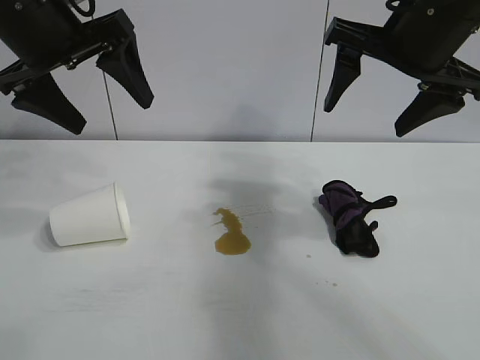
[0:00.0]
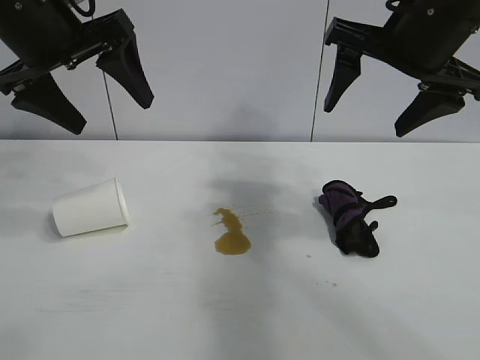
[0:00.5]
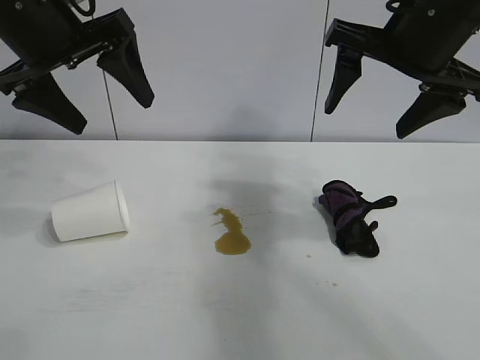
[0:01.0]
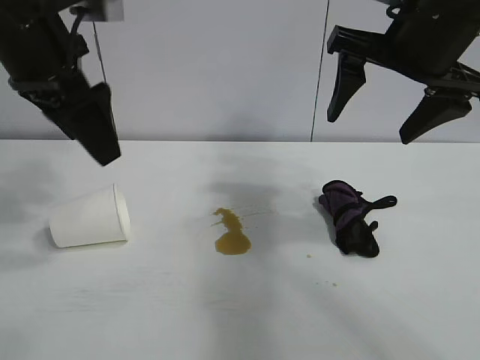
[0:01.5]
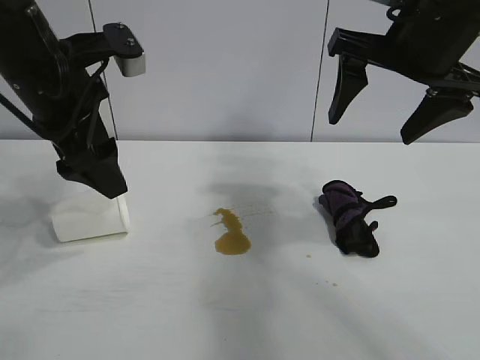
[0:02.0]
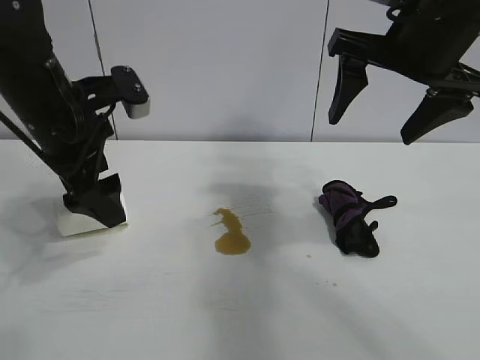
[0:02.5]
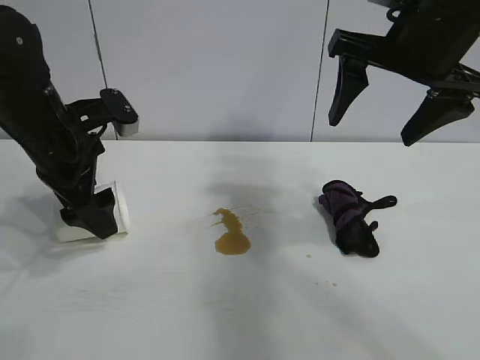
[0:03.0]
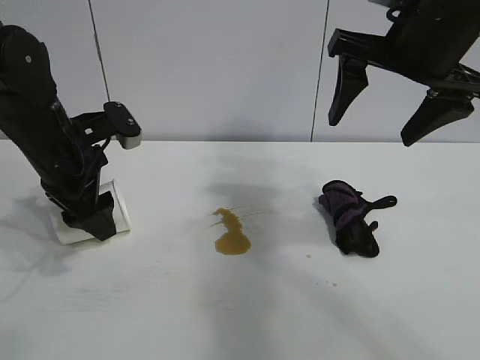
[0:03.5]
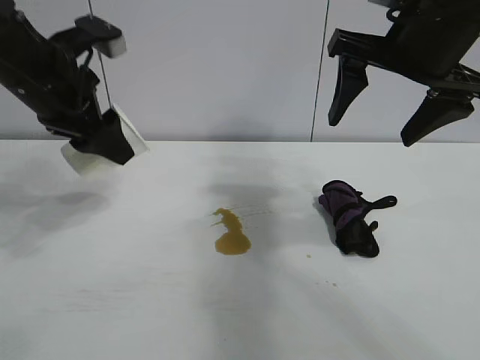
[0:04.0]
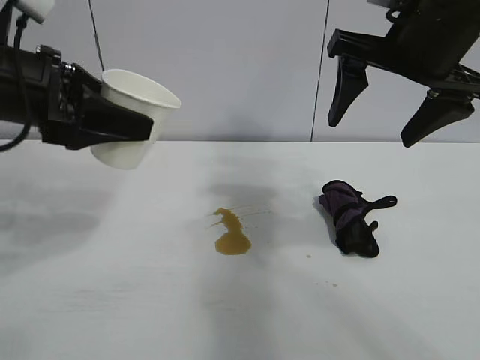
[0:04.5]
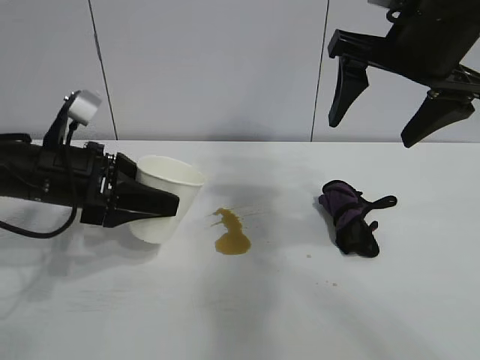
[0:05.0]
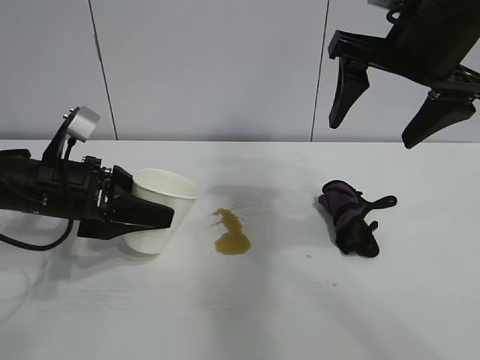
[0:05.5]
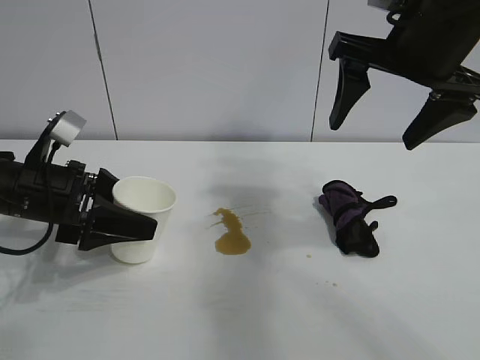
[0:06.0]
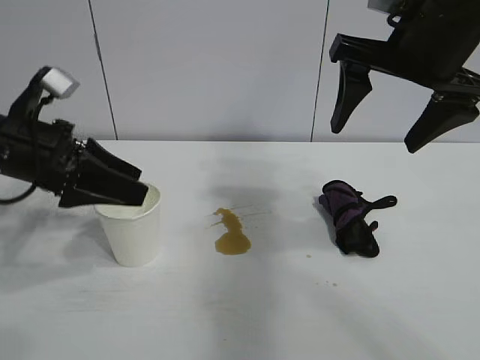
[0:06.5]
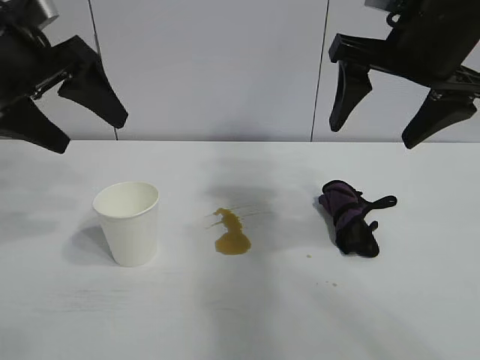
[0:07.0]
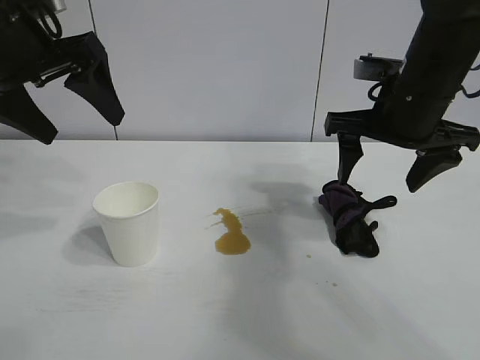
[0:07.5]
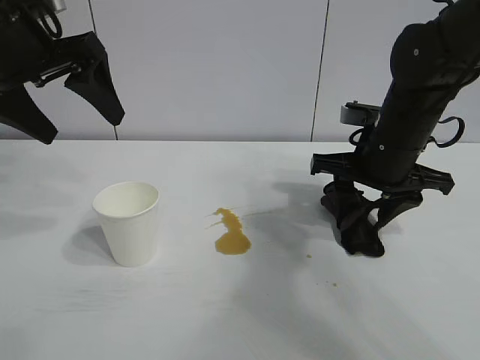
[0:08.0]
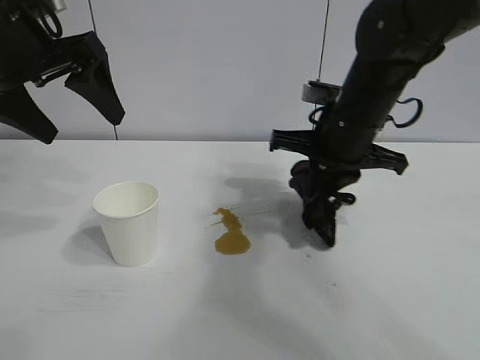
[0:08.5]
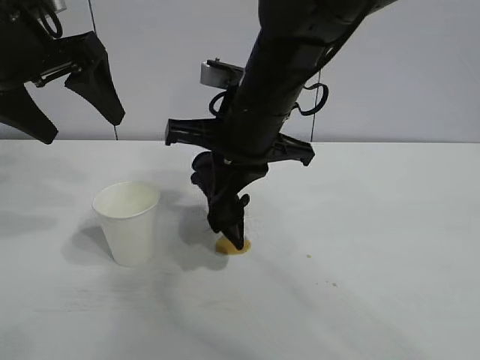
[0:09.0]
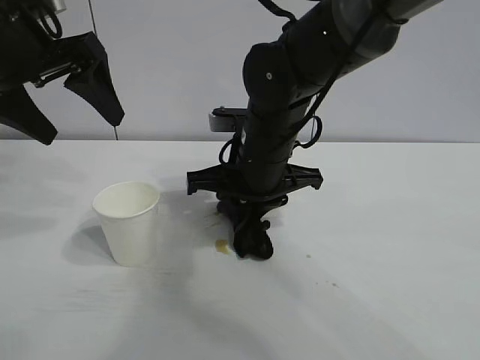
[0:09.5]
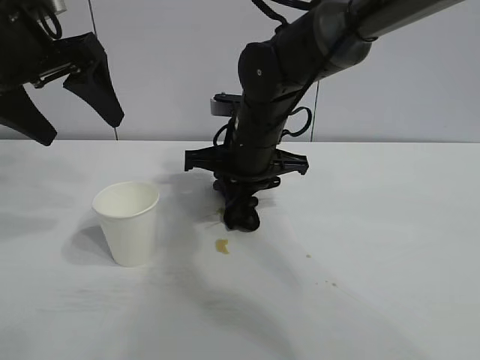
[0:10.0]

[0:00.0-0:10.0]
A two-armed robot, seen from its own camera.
Task of the whole recording: the left gripper pick up the fallen cup and place it upright, the right gripper grasp the black rag and wipe the stain on the table, the right gripper put the black rag back in its original position.
Step, 0:01.0 to 0:03.5: Grasp the paper cup with left gripper.
Step, 0:04.0 to 0:06.0: Stand the paper cup upright with left gripper.
Step, 0:06.5 to 0:08.0: Grasp the rag with right gripper.
